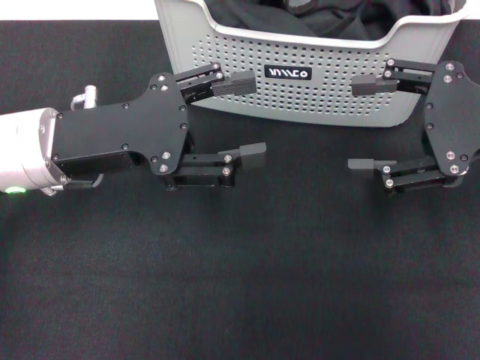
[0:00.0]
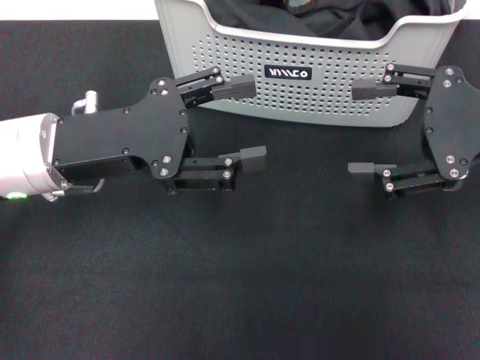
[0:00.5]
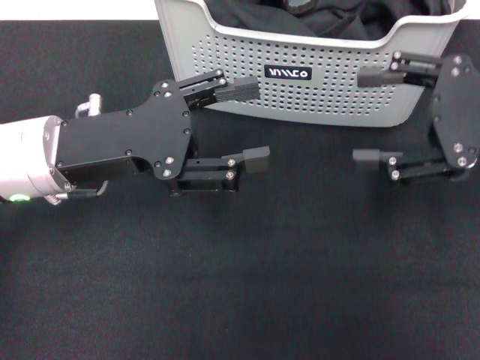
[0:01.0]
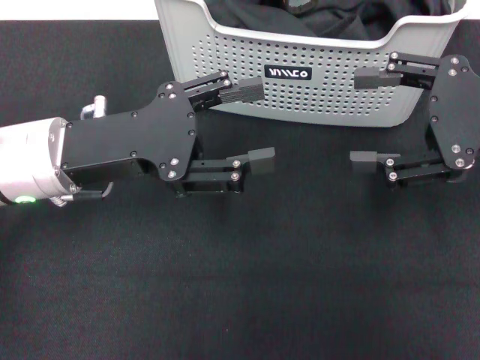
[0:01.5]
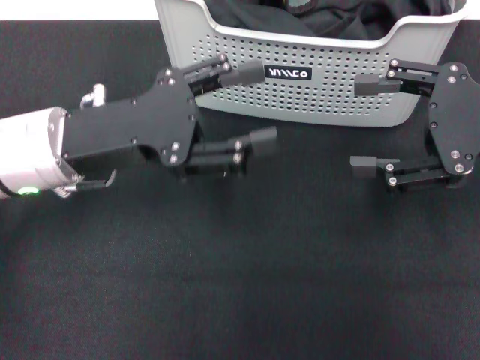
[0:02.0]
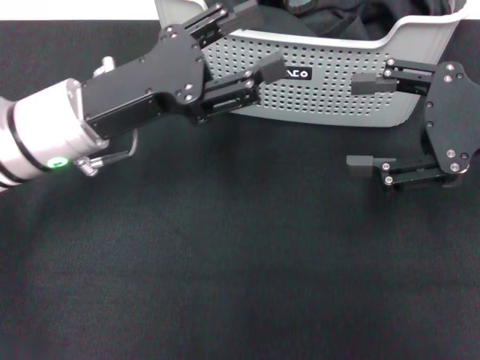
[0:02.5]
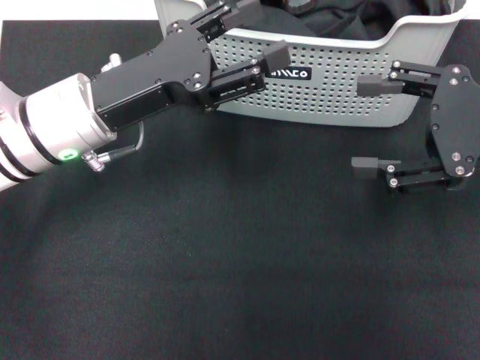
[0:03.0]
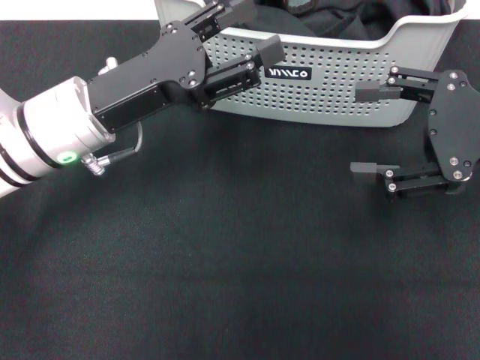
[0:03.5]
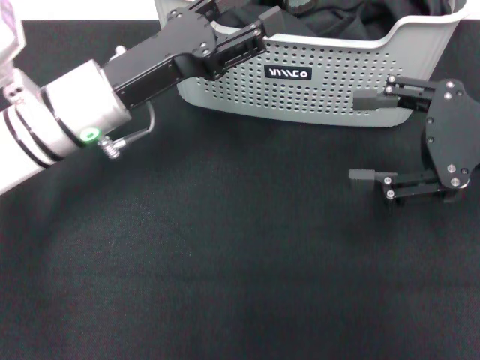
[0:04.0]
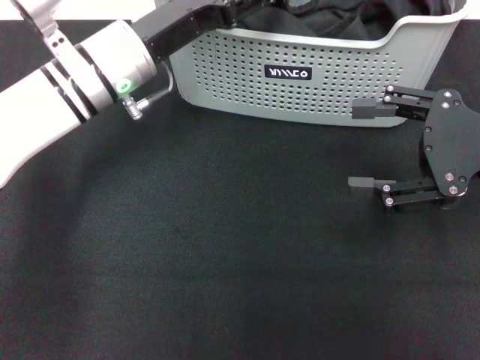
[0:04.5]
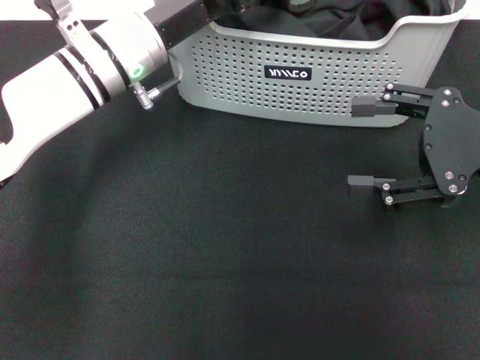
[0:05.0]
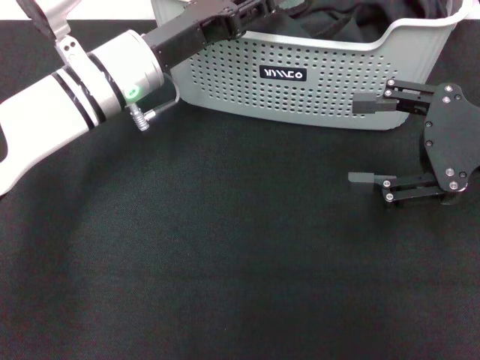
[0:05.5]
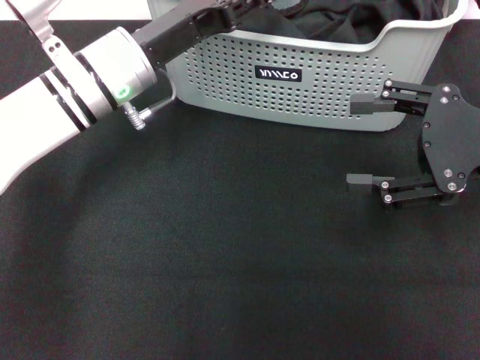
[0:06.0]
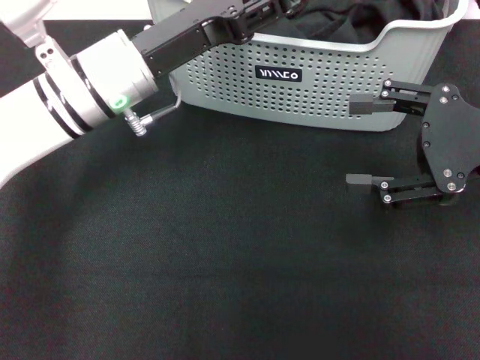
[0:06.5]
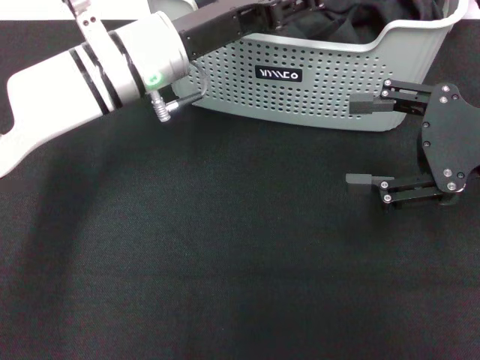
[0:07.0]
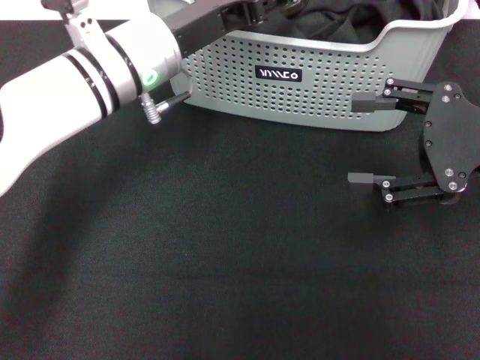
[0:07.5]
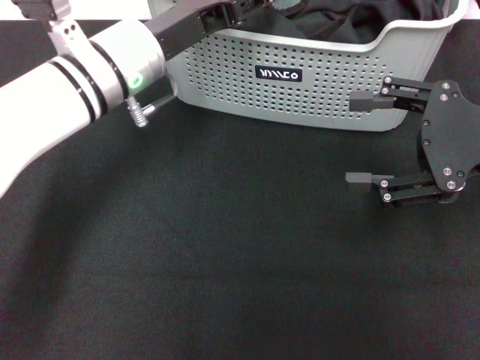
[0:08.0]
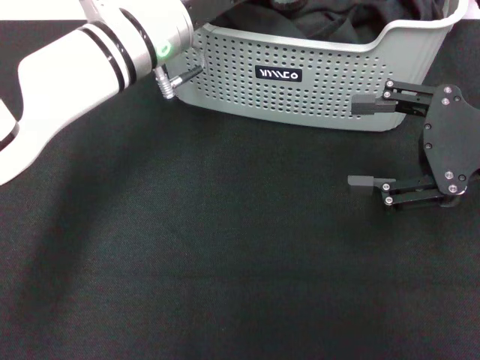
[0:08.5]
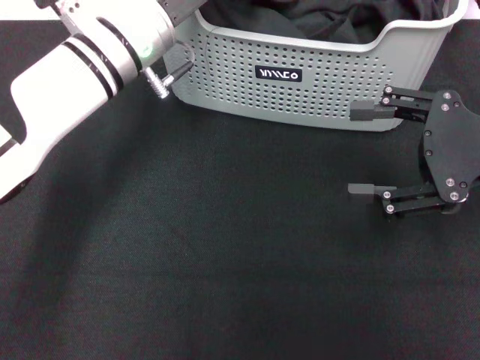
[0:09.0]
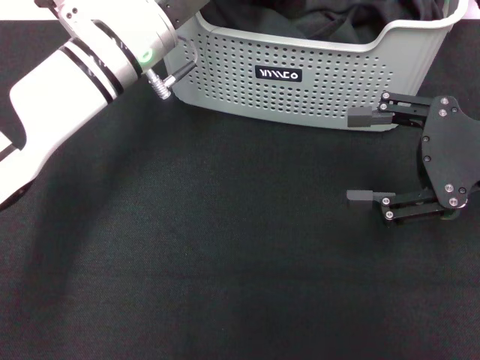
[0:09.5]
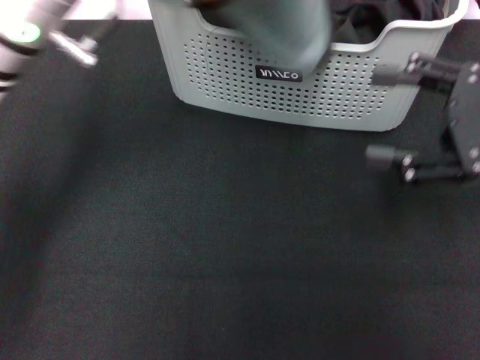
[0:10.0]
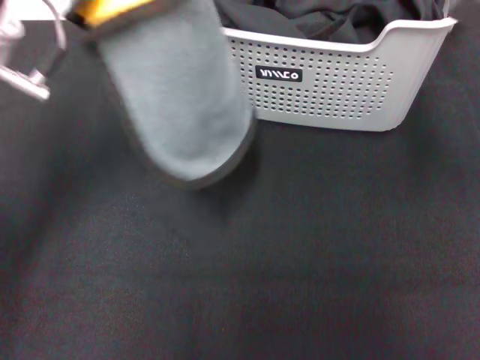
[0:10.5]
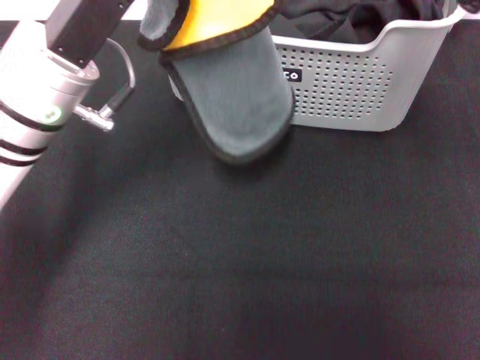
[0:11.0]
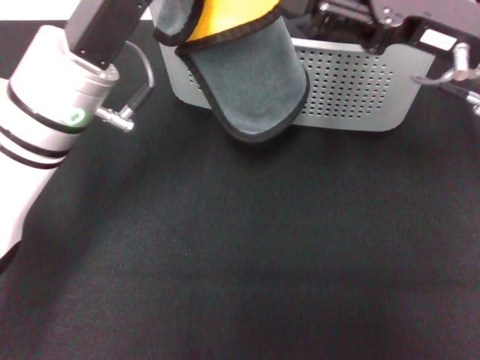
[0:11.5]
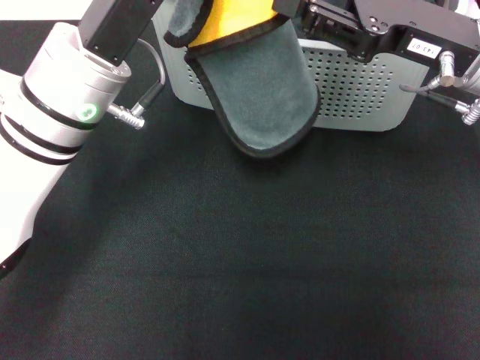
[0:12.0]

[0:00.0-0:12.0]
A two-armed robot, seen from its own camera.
Task of the whole recording: pick up the towel from the storage box and lay it flat on the black tablecloth.
Step, 0.0 to 9.5 s: Pick up a towel with the left gripper.
0.0 to 2.0 s: Neither gripper changes place.
2.0 to 4.0 s: The left gripper ends up some 5 cm from where it was.
6.0 to 8.0 s: The grippers make only small movements.
8.0 to 10.0 s: The left gripper moves upward, about 5 cm, and closes its fingers.
10.0 to 12.0 s: The right gripper moves to the left and forward, some 10 cm; the left gripper heads downward, covering roughly 5 cm.

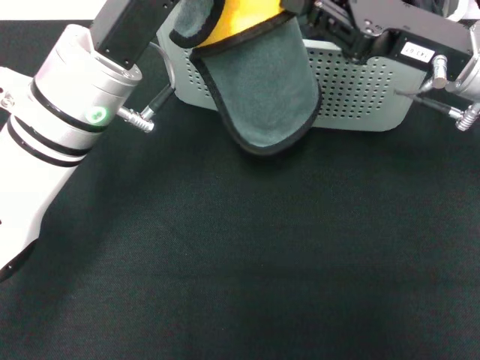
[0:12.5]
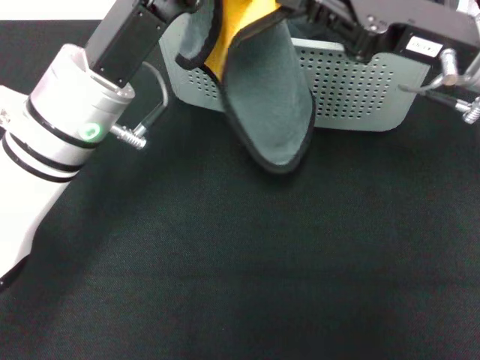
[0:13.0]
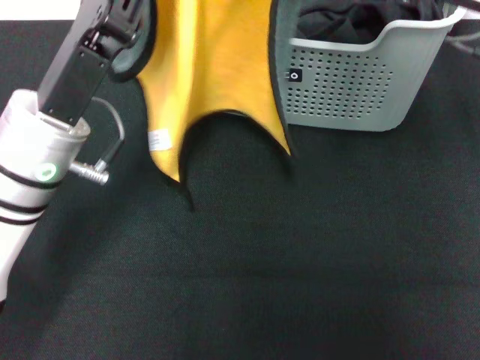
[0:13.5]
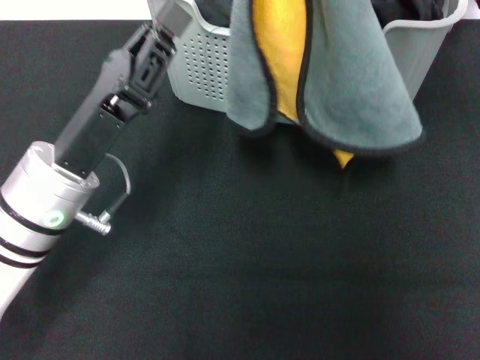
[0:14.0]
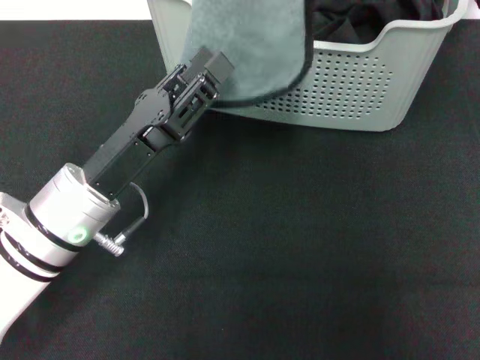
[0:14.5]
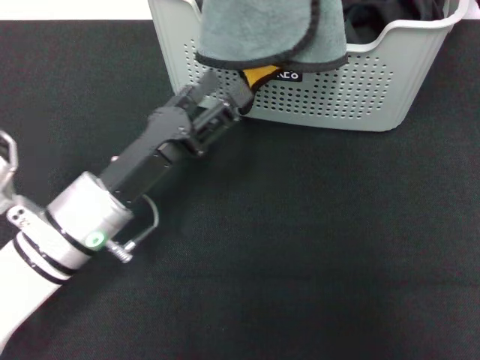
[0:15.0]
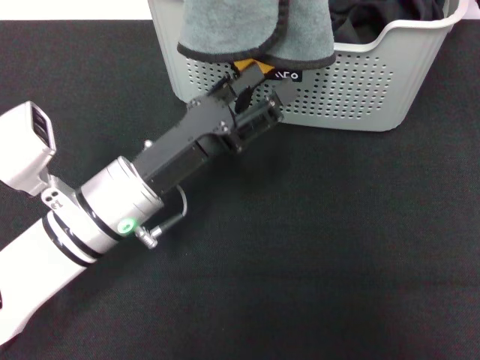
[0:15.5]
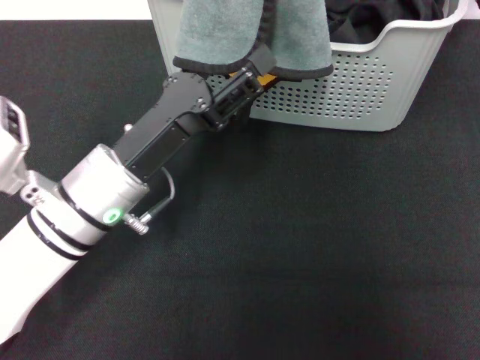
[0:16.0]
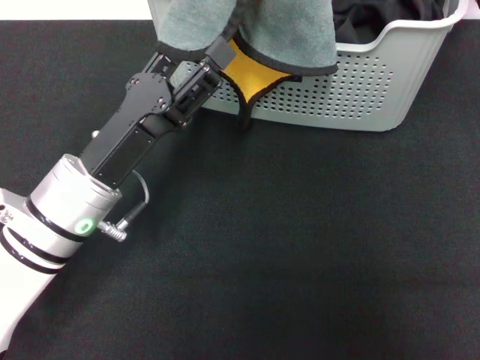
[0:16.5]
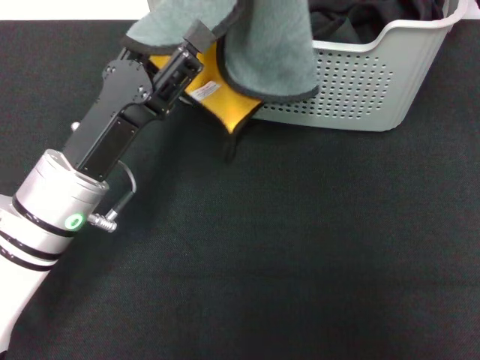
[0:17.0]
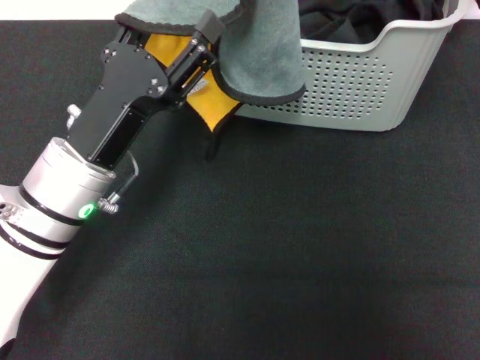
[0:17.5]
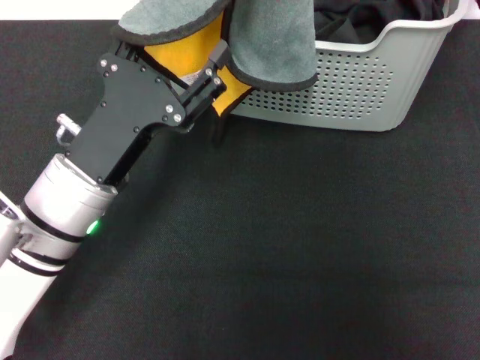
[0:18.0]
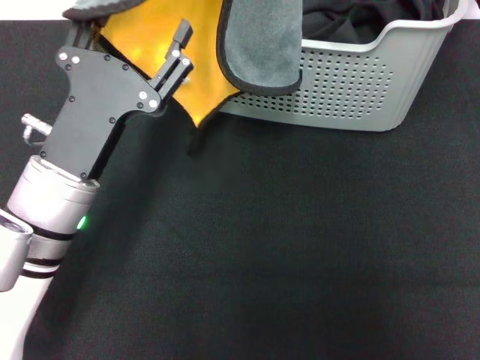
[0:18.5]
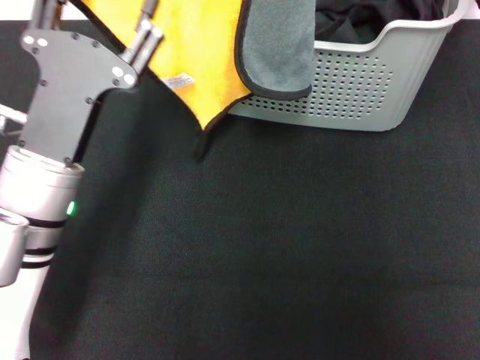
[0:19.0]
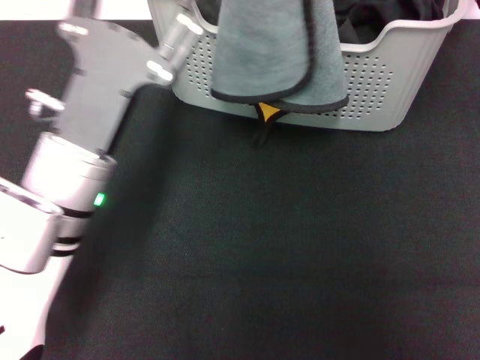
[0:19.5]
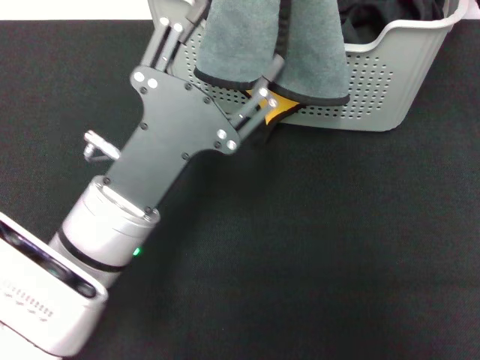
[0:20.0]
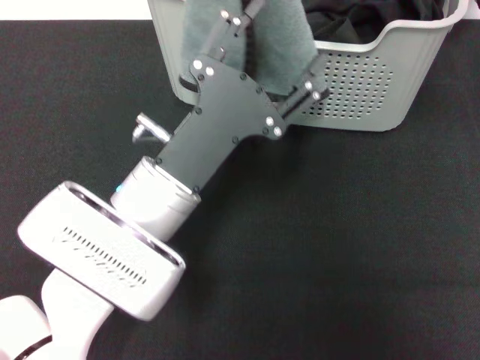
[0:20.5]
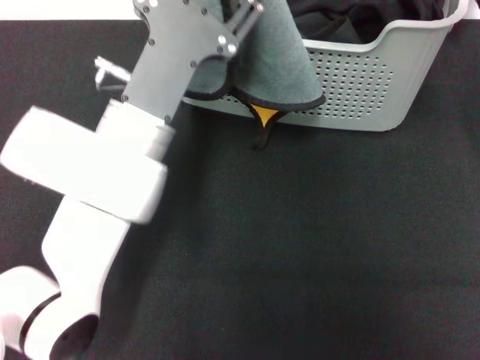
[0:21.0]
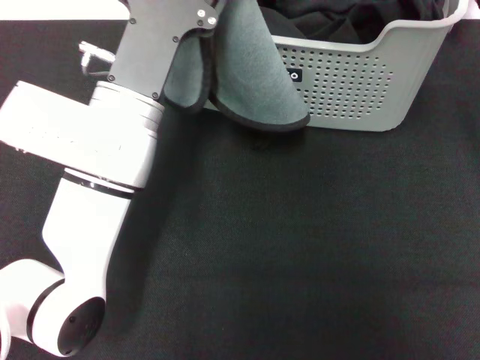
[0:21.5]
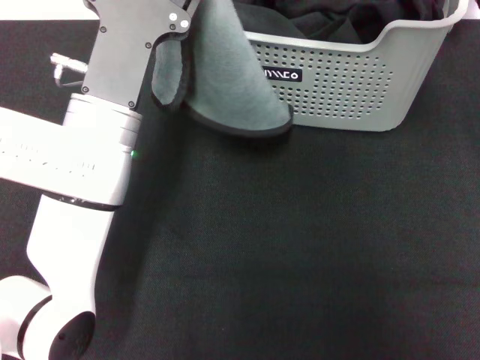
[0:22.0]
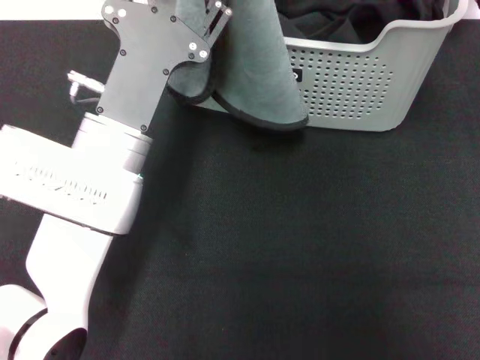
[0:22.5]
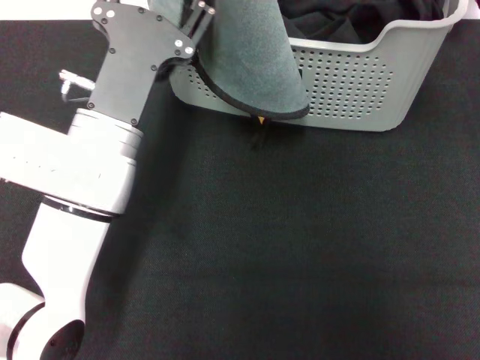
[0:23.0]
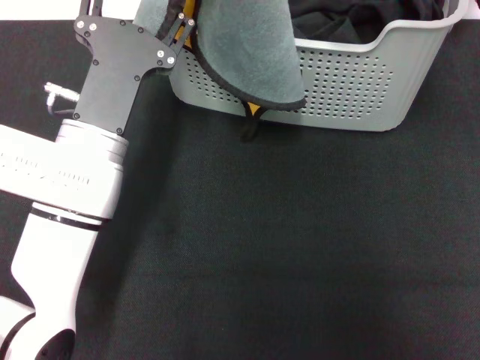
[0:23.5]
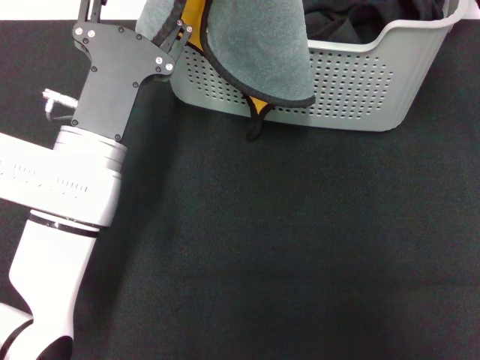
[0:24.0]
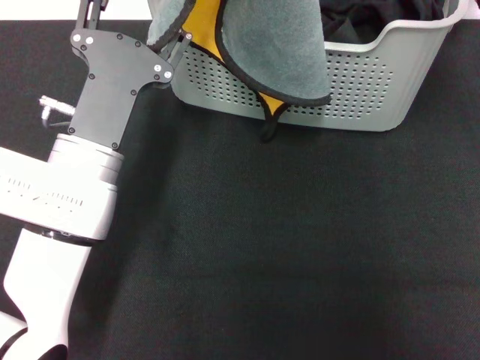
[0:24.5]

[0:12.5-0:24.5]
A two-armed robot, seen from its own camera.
Task of the whole recording: pick up the towel from the storage box and lay it flat on the black tablecloth.
12.5 to 14.5 s: The right gripper heads upward, covering approximately 15 cm. The left gripper goes roughly 10 cm downward and backward, and opens.
14.5 to 16.5 s: The left gripper opens.
18.5 to 20.5 s: The right gripper shifts approximately 5 cm to the left. The left gripper goes some 10 cm to the right.

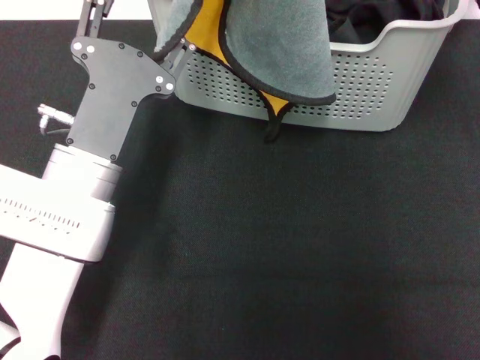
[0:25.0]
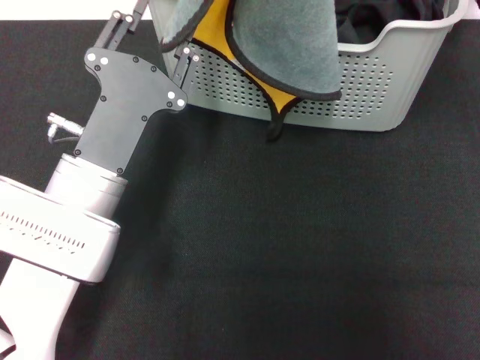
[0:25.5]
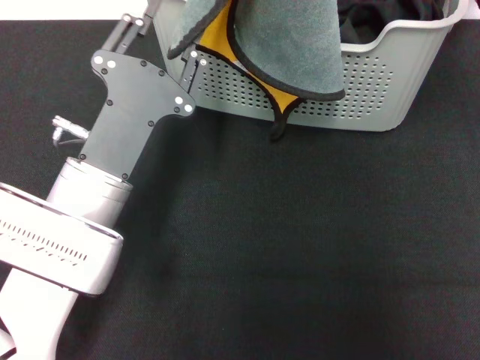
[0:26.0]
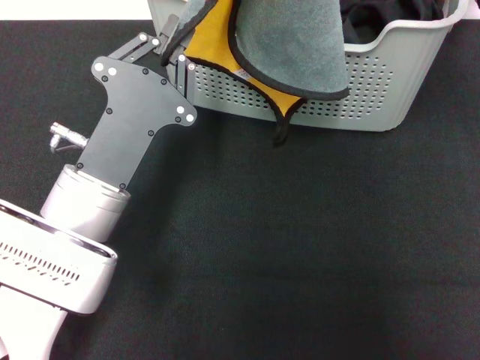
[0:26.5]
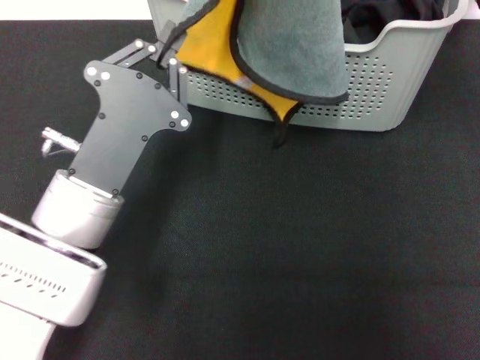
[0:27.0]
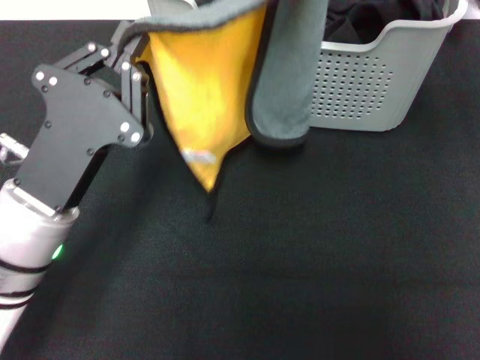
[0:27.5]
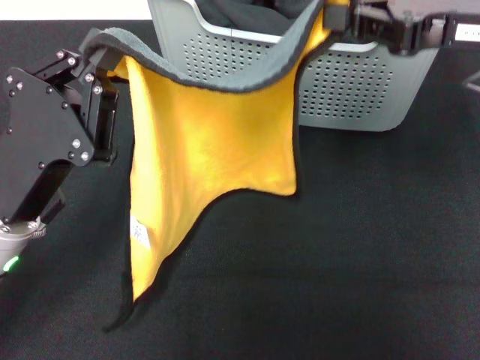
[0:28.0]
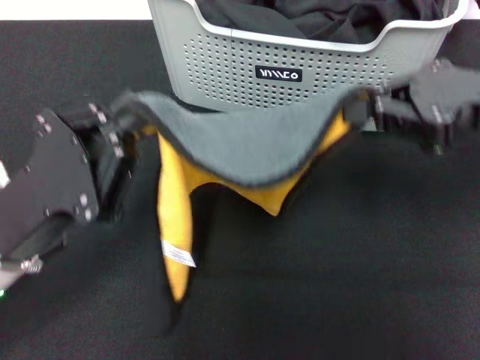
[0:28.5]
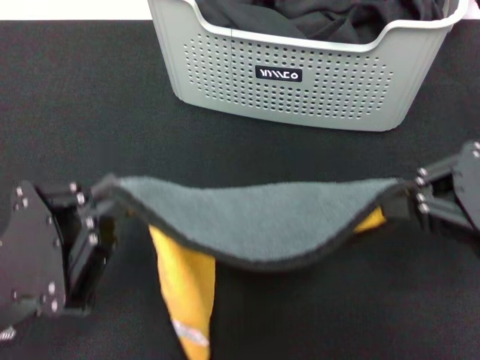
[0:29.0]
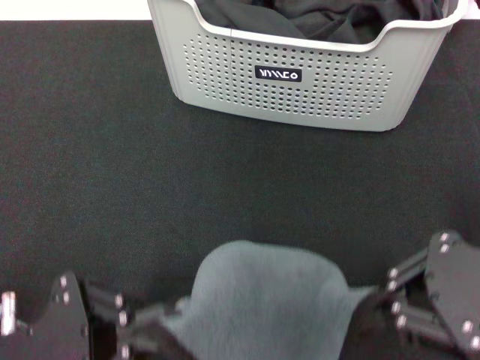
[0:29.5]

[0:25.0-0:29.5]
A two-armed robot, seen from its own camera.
Task of the whole recording: pick up the towel from the storage box and lay it flat on the black tablecloth.
Step, 25.0 to 27.5 s: Spread the towel flat with the left gripper.
25.0 to 27.0 s: The left gripper closes up.
27.0 to 29.5 s: The right gripper travels backward and downward by some 20 cm. The left gripper shifts some 15 cm backward and to the left.
